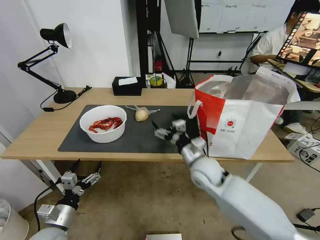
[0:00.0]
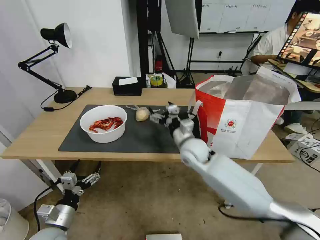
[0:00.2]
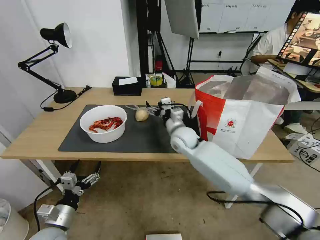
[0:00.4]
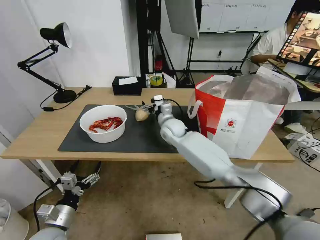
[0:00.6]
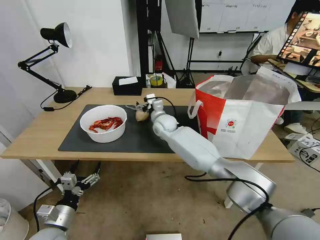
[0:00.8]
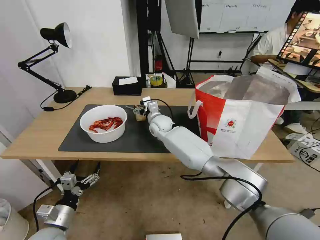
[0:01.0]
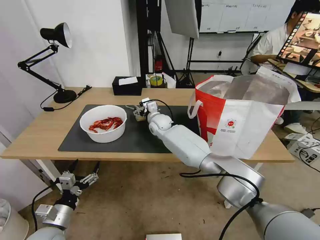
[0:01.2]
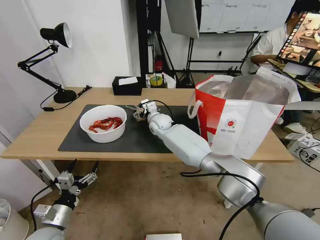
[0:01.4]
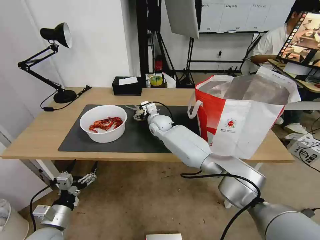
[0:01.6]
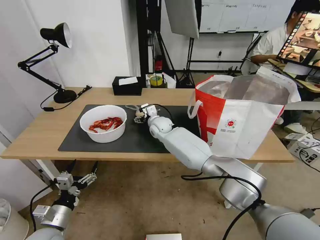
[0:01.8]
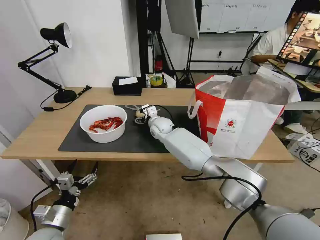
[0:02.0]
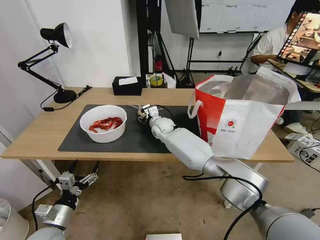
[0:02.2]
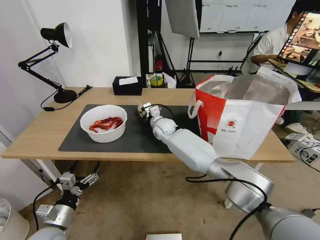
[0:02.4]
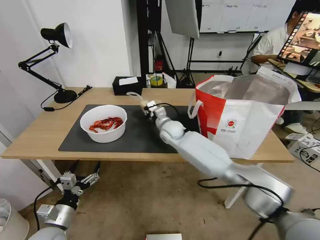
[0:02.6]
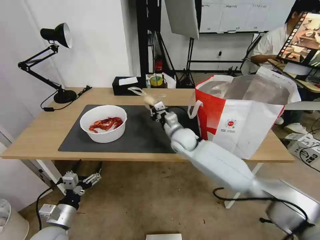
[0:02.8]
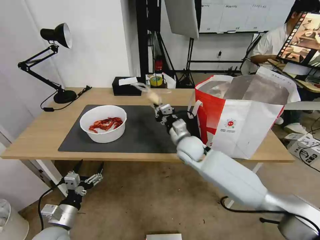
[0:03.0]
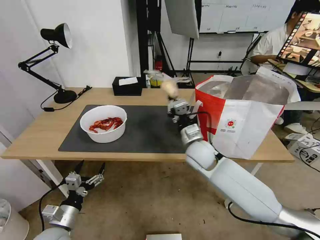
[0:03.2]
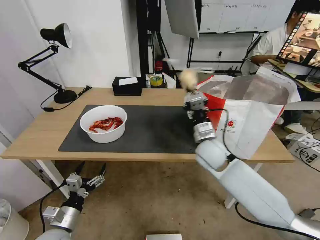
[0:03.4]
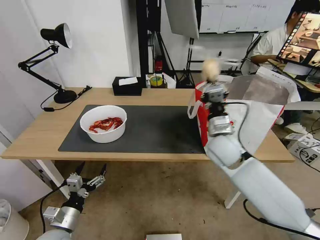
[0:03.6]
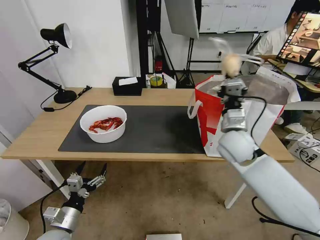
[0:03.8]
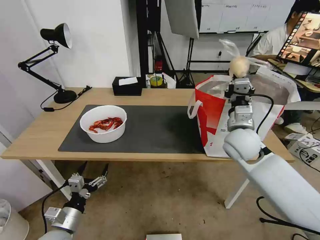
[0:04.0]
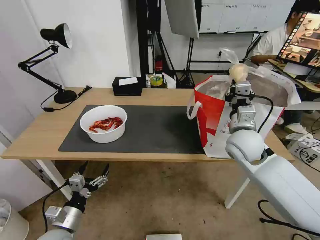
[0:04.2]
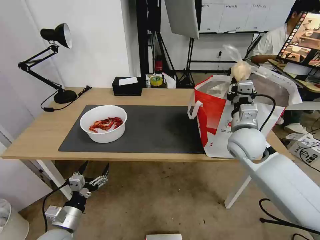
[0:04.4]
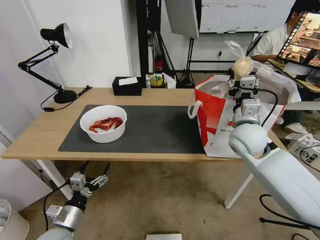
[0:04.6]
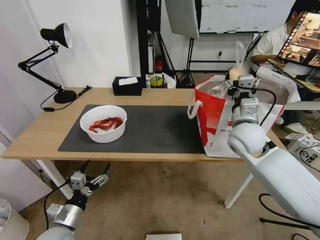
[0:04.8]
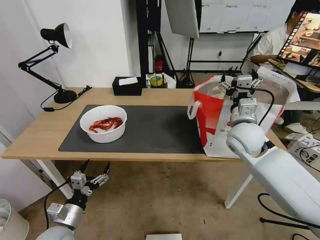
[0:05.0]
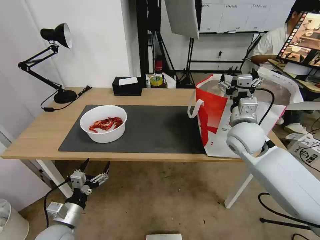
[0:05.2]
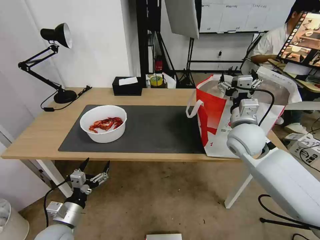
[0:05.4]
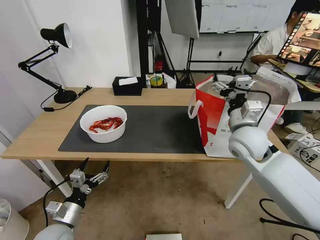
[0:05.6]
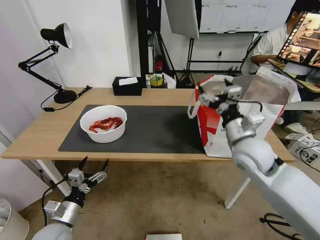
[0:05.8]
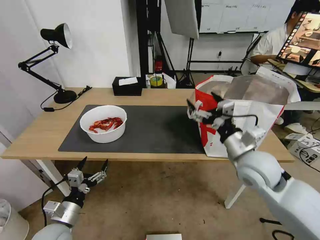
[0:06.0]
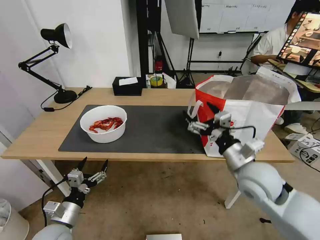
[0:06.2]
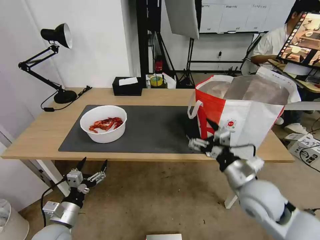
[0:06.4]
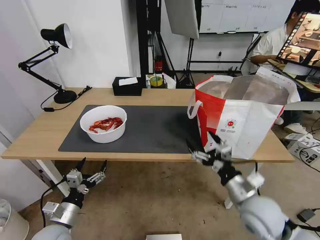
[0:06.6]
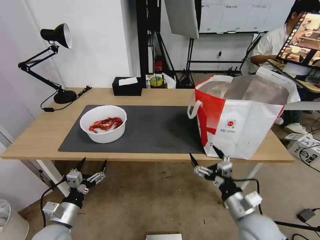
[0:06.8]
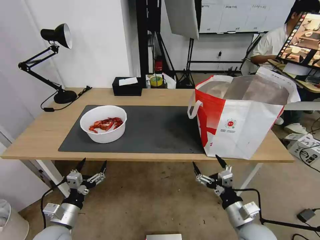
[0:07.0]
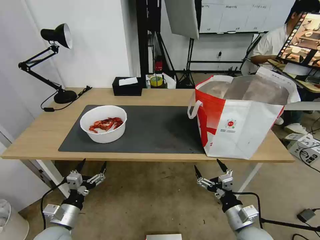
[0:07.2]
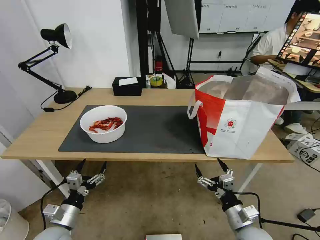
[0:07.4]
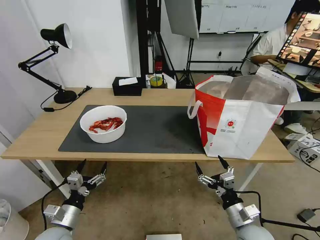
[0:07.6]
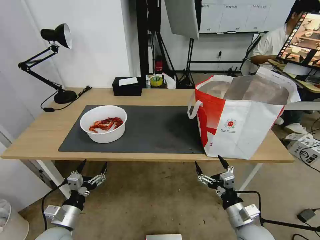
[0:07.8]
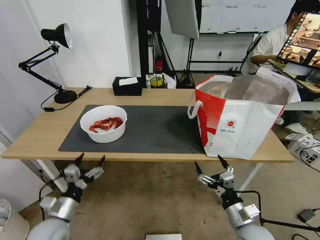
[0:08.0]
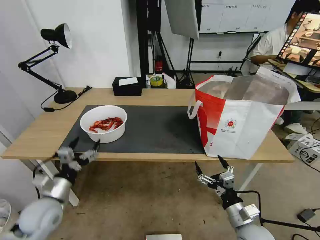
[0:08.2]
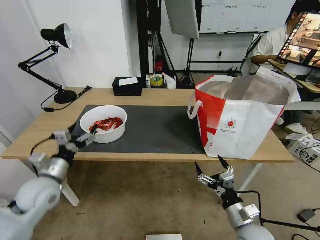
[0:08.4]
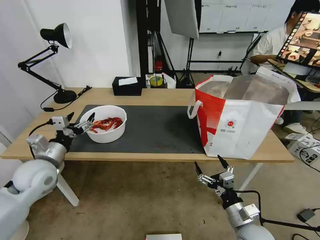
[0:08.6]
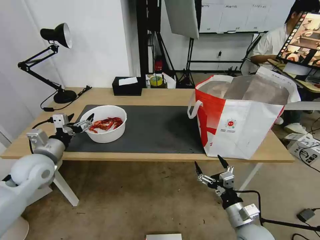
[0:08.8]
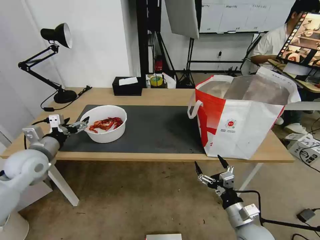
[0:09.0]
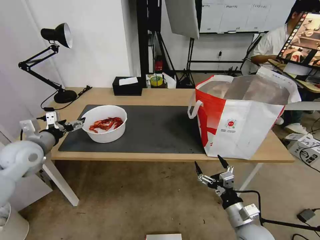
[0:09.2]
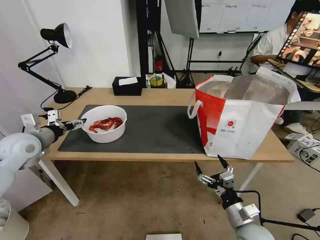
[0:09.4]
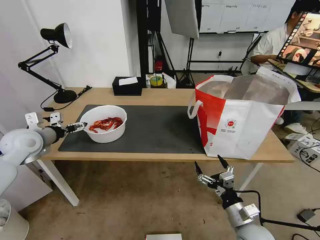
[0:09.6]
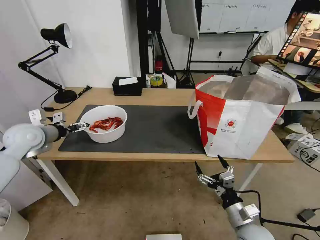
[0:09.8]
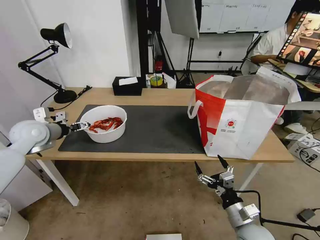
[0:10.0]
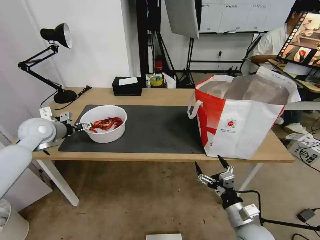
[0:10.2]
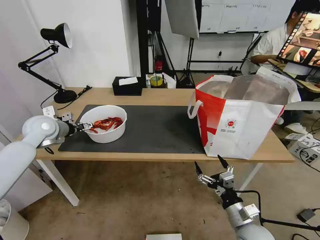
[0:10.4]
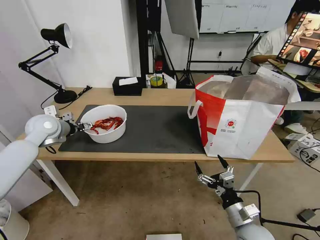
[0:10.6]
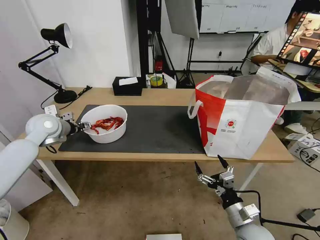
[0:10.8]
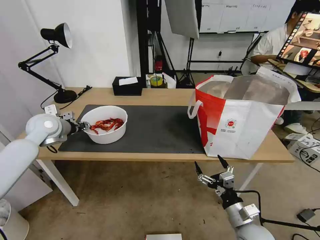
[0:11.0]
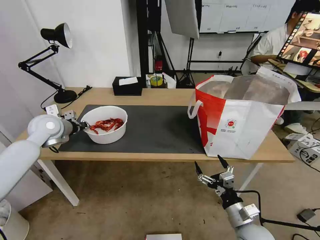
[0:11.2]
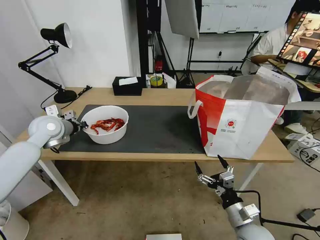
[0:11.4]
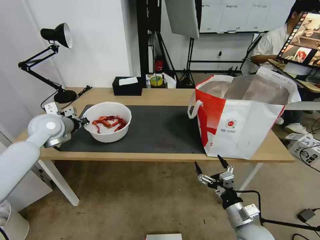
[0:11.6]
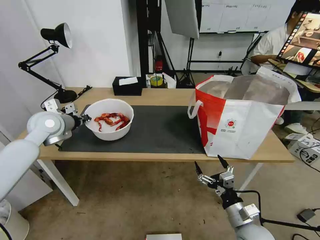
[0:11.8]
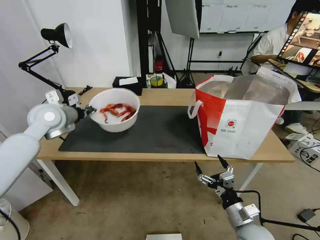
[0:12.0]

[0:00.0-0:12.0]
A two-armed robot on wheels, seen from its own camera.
Task of the whole recording: Pick up the trash from the table and place it into the takeout bag.
0:00.0 to 0:01.6: The right gripper shifts roughly 25 cm forward and to the left.
0:01.6 to 0:03.0: The right gripper is displaced backward and to the right by approximately 15 cm, and closes up.
0:03.0 to 0:04.4: The right gripper travels to the right, upward and backward by some 20 cm.
0:04.4 to 0:06.0: The right gripper travels backward by approximately 10 cm, and opens up.
0:06.0 to 0:07.6: The right gripper is displaced downward and backward by approximately 25 cm.
0:07.6 to 0:09.0: The left gripper shifts roughly 25 cm upward, forward and to the left.
0:09.0 to 0:10.4: The left gripper moves forward, roughly 10 cm.
0:10.4 to 0:12.0: The left gripper shifts some 10 cm upward and to the right, and closes up.

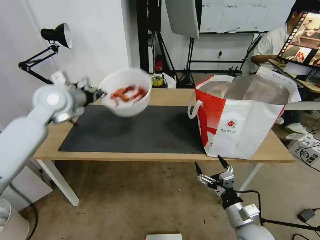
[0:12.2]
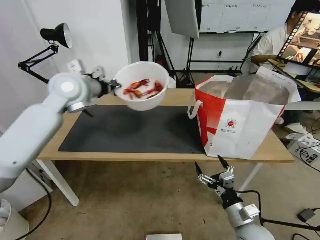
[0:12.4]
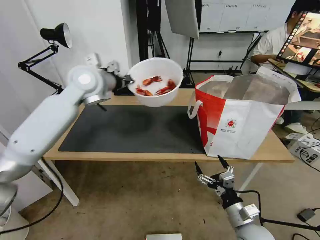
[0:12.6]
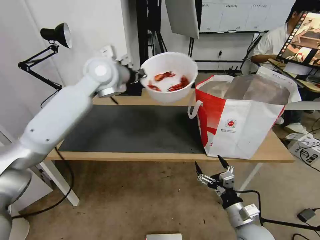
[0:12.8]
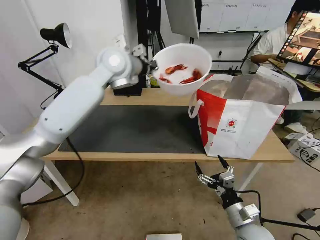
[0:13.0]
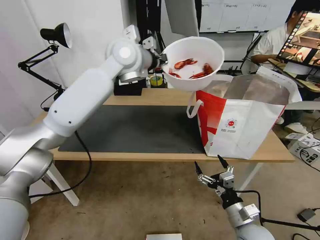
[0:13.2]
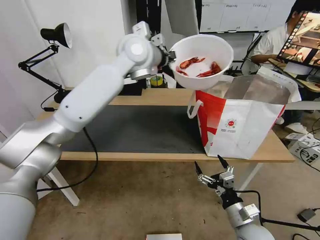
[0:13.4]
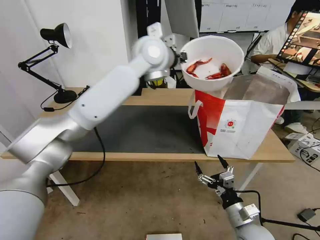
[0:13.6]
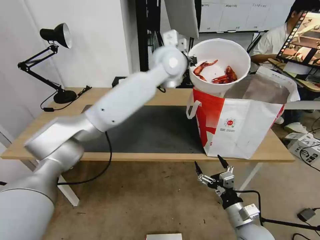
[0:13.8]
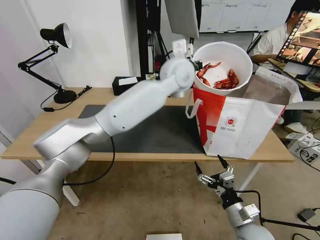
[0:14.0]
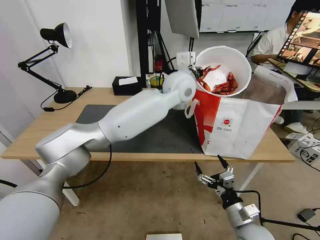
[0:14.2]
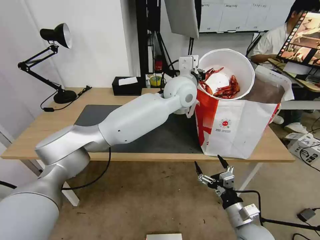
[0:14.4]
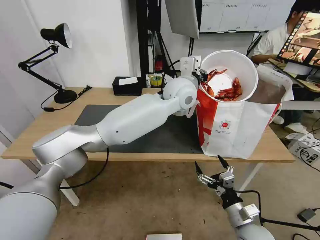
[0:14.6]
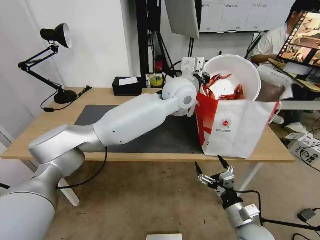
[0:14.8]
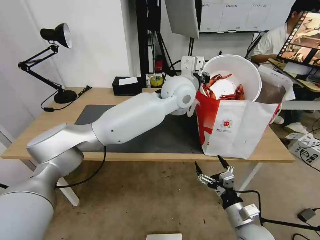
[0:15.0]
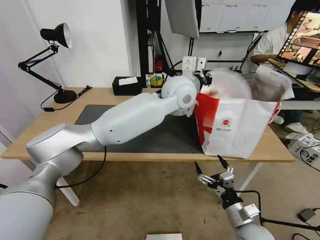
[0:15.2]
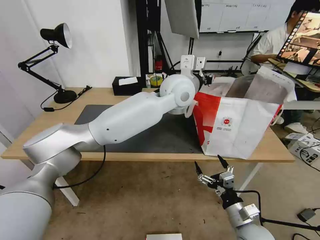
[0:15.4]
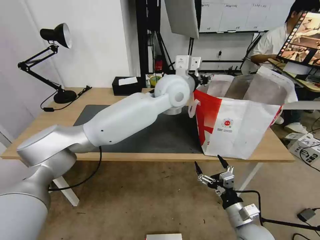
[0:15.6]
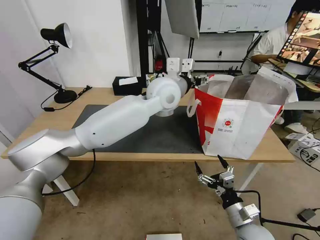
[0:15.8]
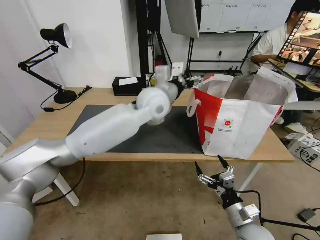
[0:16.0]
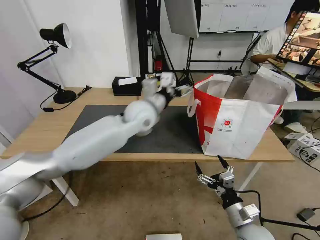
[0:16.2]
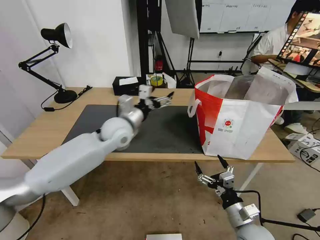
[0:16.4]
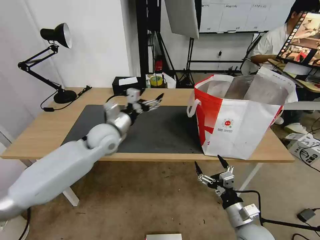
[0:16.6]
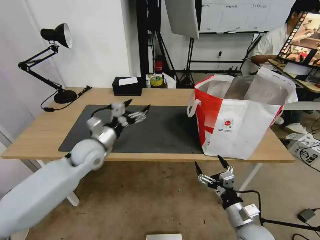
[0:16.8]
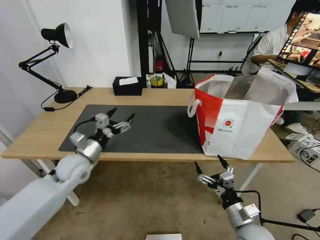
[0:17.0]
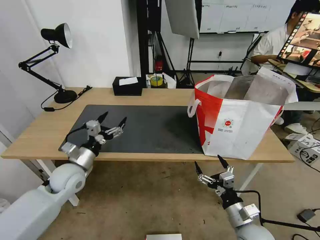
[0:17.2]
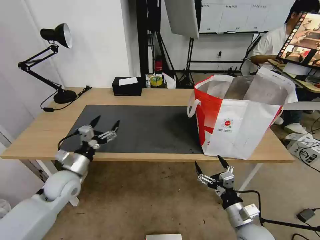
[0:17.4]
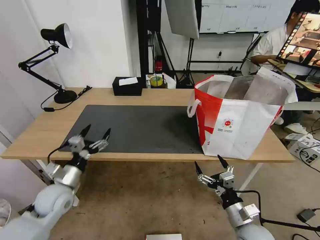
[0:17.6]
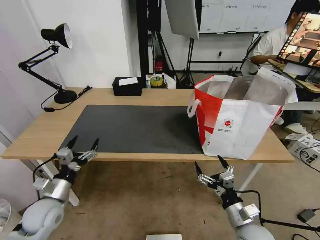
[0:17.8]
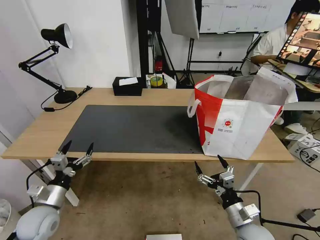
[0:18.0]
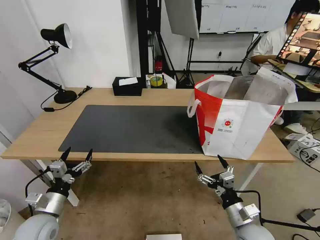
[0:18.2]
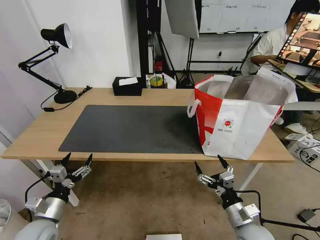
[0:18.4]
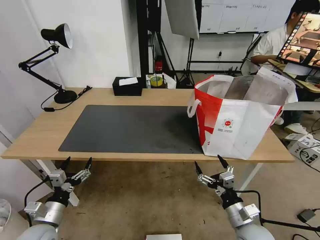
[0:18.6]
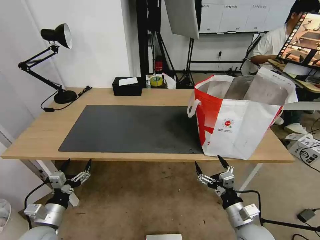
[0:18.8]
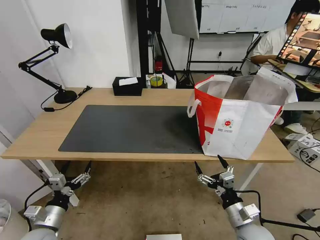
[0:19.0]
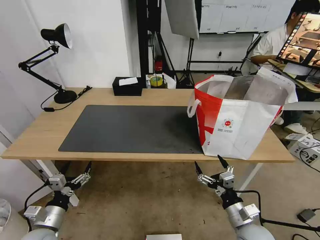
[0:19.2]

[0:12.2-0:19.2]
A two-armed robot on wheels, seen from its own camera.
Task of the whole recording: Pick up the trash from the table and place it into the takeout bag.
0:12.2 to 0:13.6: The left gripper heads to the right, covering roughly 25 cm.
0:13.6 to 0:15.0: The left gripper travels downward and to the right by about 10 cm.
0:15.0 to 0:16.4: The left gripper goes approximately 20 cm to the left and downward, and opens.
0:16.4 to 0:17.8: The left gripper goes roughly 35 cm to the left, backward and downward.
0:17.8 to 0:19.2: The left gripper moves backward, some 5 cm.

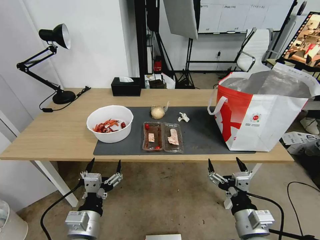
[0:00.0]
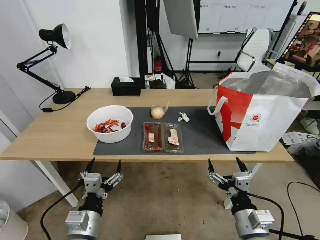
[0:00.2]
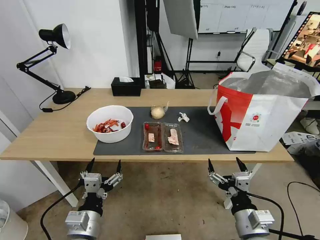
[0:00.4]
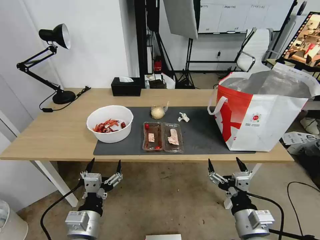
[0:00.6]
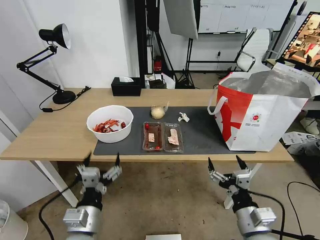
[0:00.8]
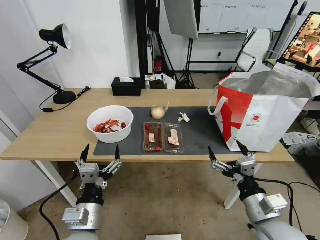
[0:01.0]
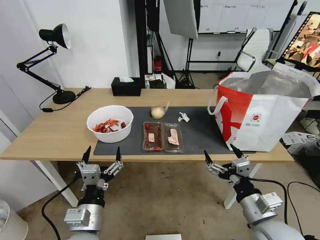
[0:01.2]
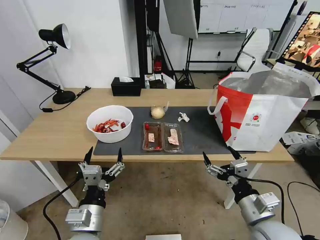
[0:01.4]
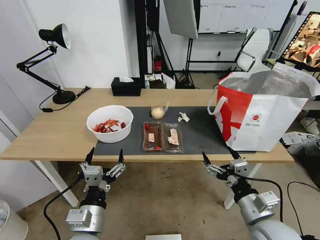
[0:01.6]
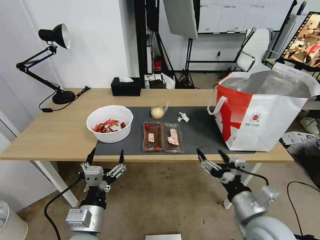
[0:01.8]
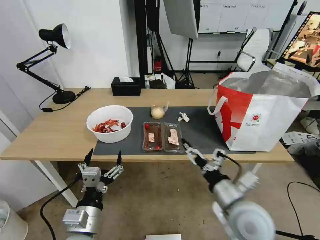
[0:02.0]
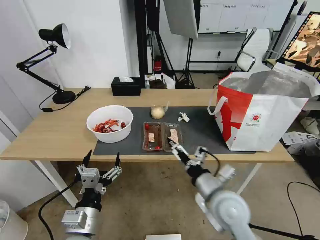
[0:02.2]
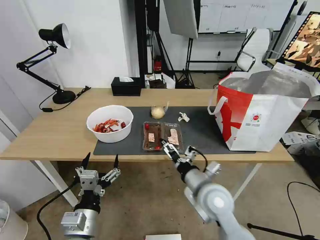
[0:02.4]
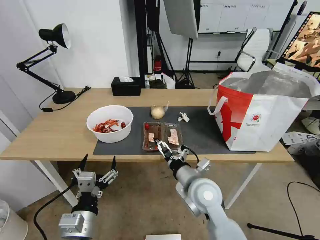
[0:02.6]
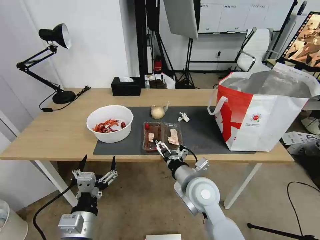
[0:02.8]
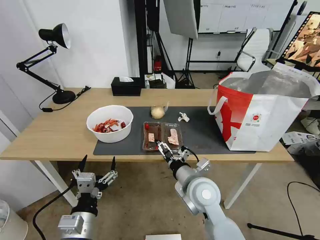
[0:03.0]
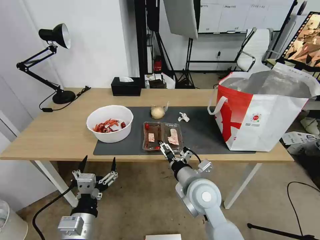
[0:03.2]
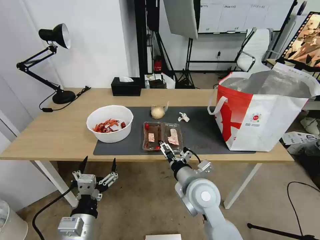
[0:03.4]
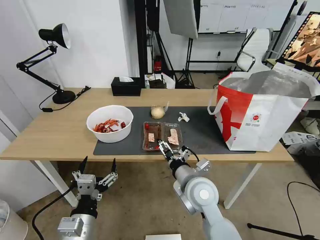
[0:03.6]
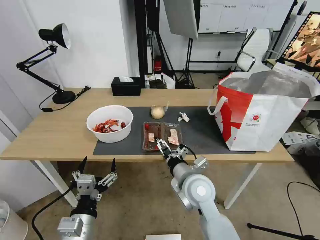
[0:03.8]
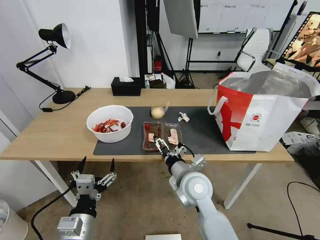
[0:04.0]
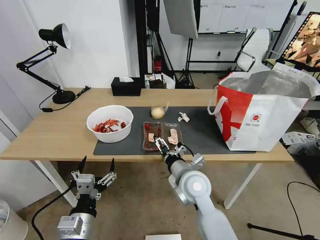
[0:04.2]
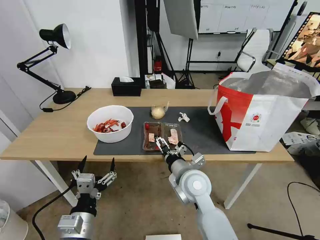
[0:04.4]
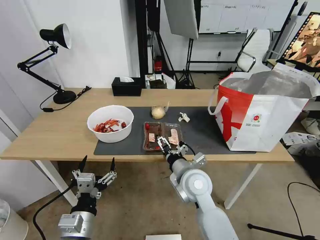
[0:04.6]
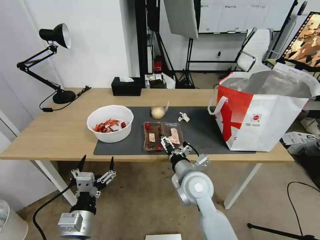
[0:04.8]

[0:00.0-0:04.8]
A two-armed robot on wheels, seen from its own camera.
Task of the whole recording: Pick up the trash from the table and place it into the takeout bag.
0:01.6 to 0:03.2: The right gripper heads to the left and forward, covering some 20 cm.
0:03.2 to 0:04.8: The grippers stay close to where they were, moving slightly.
